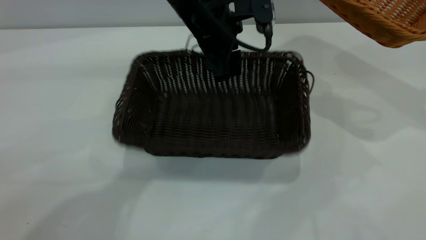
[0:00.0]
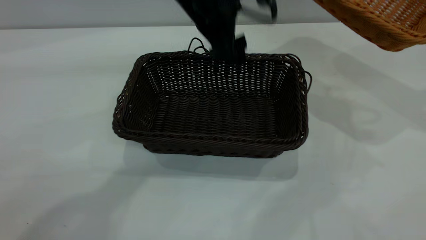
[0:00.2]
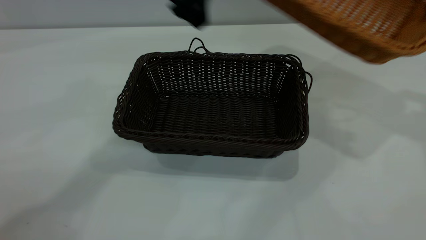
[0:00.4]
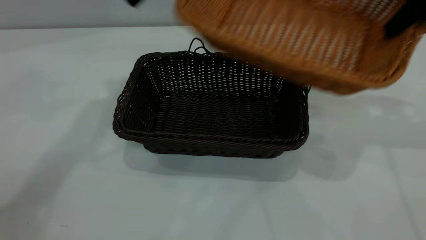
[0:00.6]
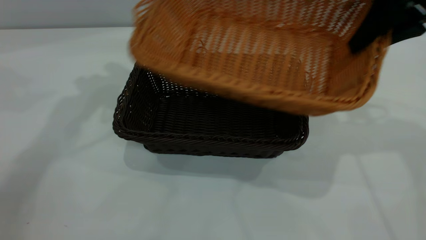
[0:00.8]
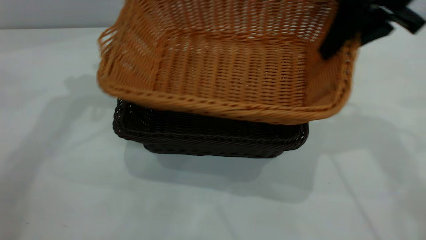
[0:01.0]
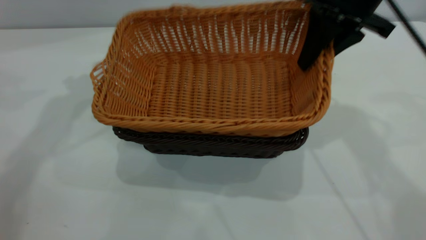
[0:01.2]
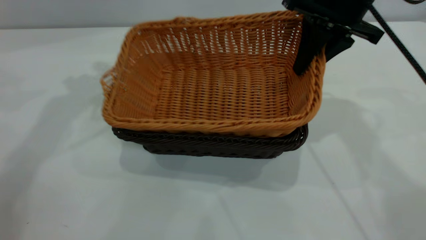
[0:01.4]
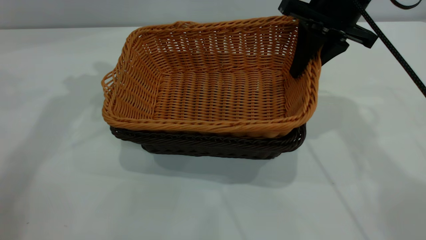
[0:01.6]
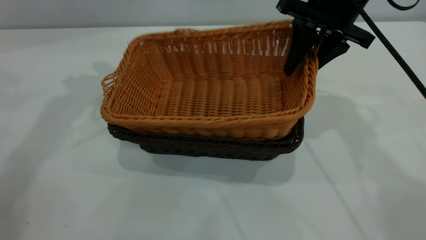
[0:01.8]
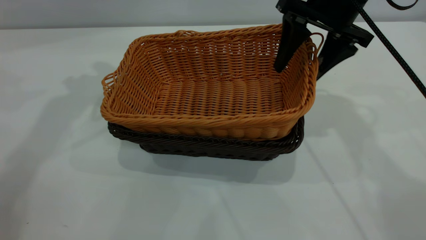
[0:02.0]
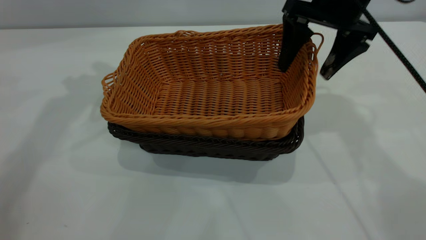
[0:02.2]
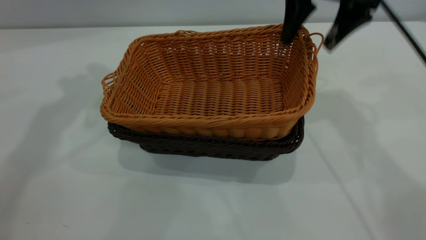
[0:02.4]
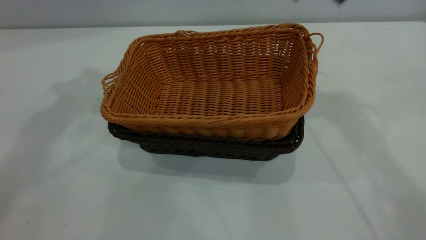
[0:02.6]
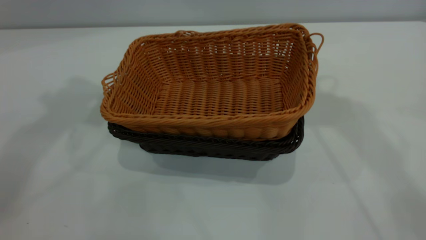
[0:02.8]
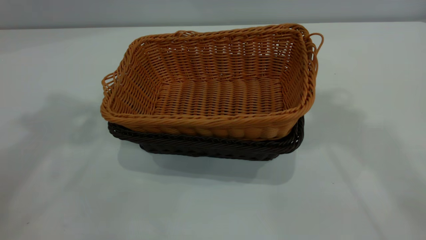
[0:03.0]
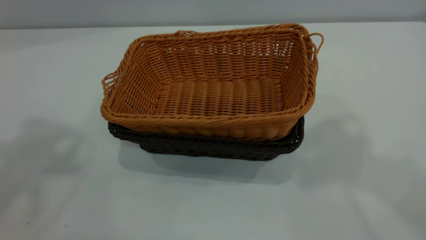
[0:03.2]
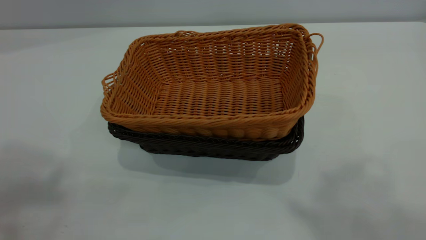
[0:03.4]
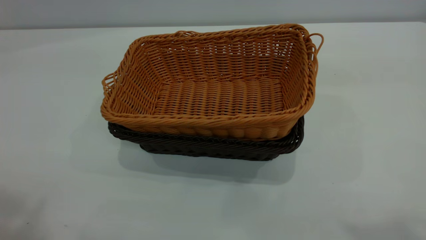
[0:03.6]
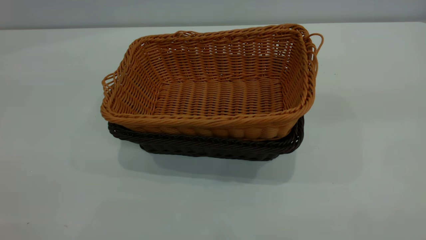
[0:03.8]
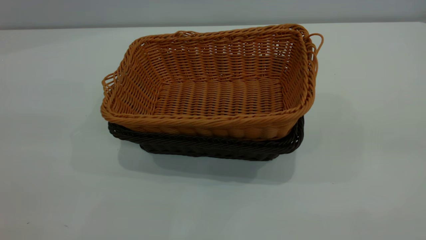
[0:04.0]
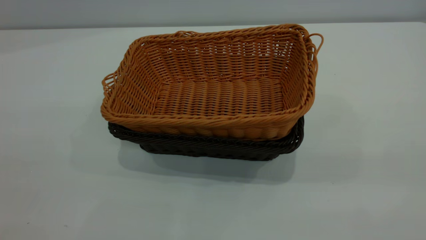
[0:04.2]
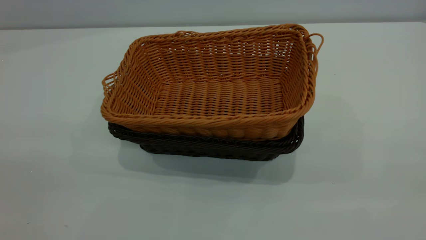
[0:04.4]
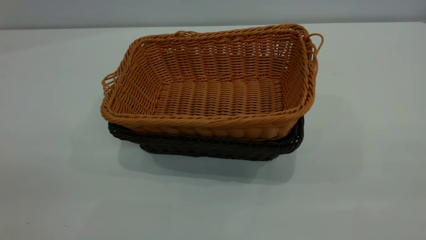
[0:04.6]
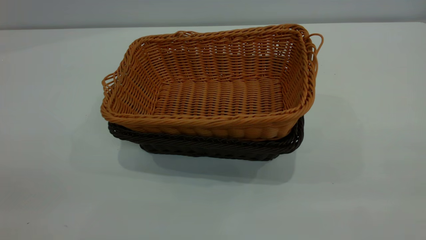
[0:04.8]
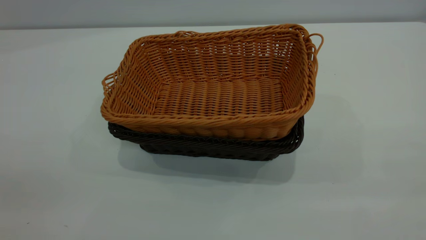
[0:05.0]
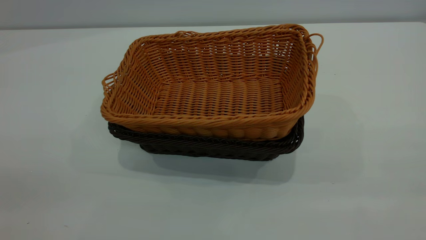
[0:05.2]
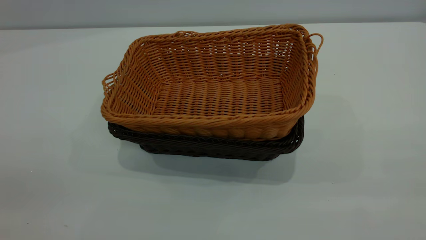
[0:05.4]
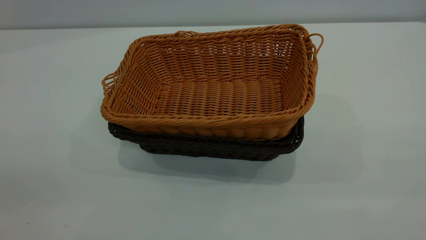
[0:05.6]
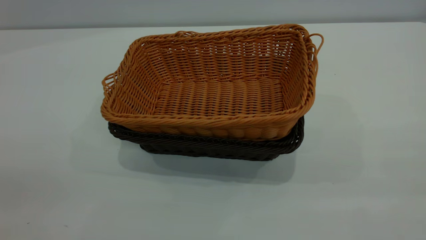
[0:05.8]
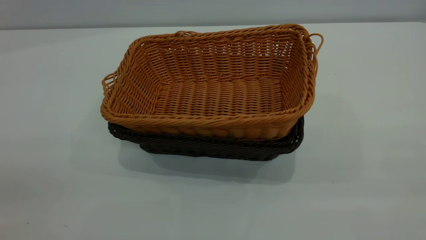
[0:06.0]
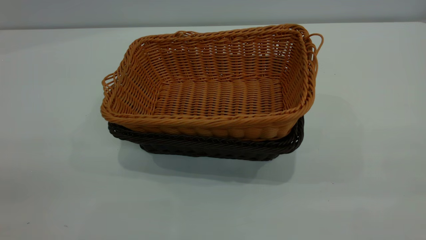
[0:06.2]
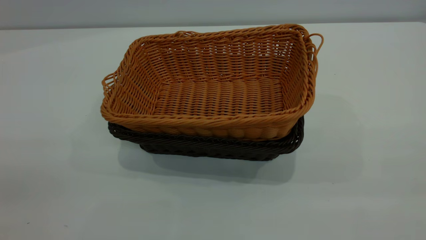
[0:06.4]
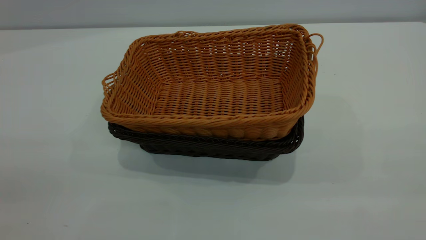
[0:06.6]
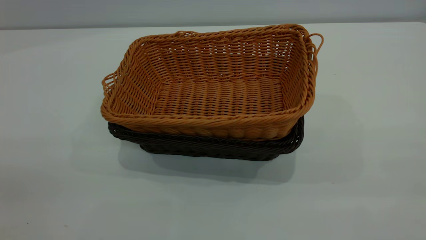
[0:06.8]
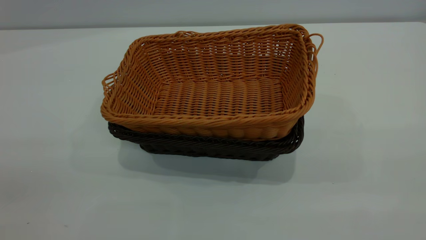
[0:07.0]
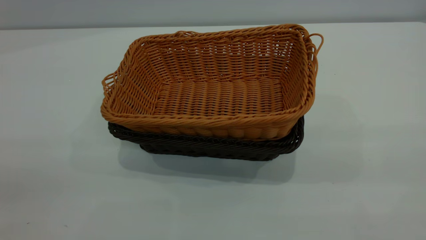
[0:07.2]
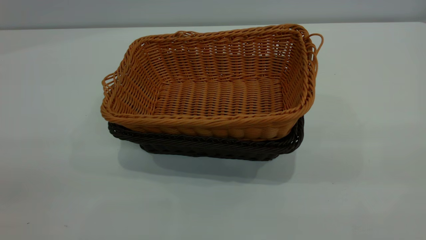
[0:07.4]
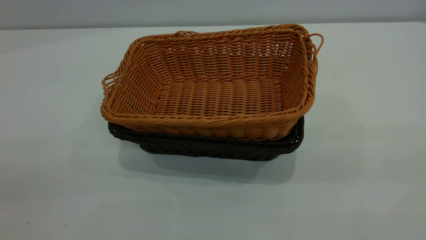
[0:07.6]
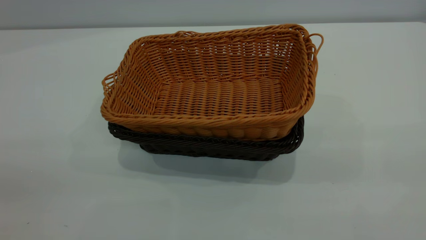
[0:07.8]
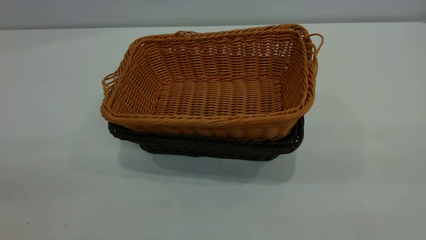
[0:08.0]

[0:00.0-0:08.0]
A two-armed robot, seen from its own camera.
Task of the whole recording: the left gripper grasp the black basket and place it in the center of the table, the right gripper grasp the brown basket and place it inside the black one.
Step, 0:00.4 to 0:02.4: Place the light basket on the dark basket.
0:00.0 to 0:01.6: The right gripper is displaced to the left by approximately 25 cm; the left gripper goes some 25 cm to the left and upward.
0:01.6 to 0:03.2: Both grippers move upward and backward, roughly 30 cm. The right gripper opens its fingers.
